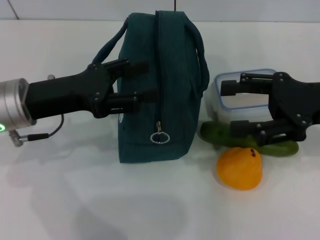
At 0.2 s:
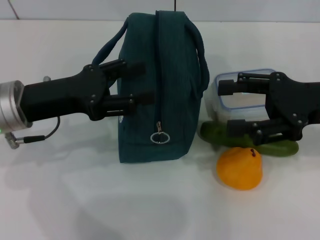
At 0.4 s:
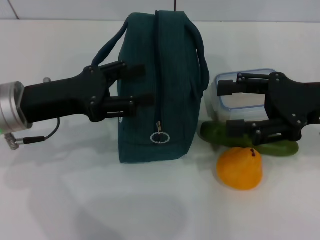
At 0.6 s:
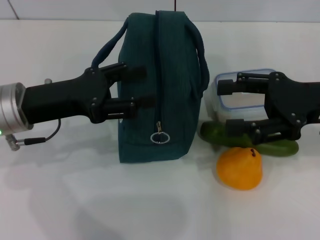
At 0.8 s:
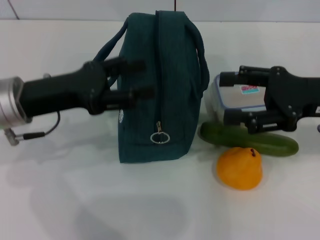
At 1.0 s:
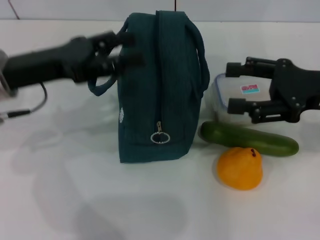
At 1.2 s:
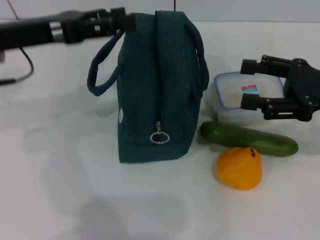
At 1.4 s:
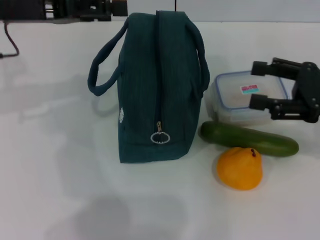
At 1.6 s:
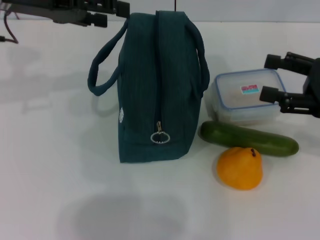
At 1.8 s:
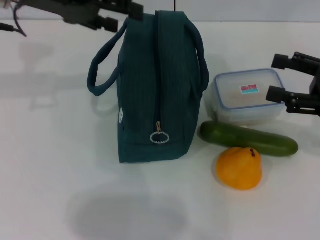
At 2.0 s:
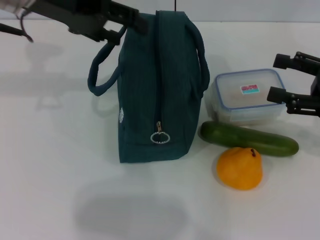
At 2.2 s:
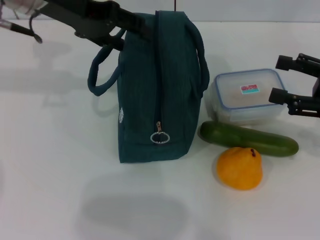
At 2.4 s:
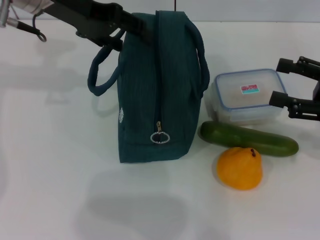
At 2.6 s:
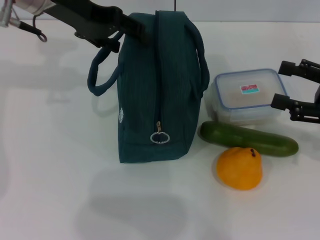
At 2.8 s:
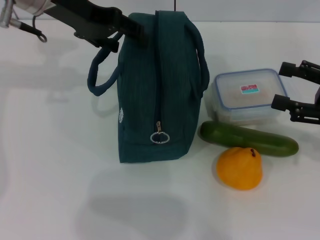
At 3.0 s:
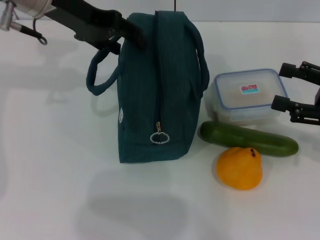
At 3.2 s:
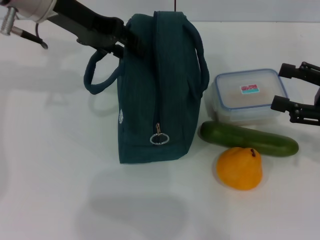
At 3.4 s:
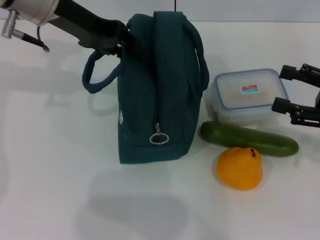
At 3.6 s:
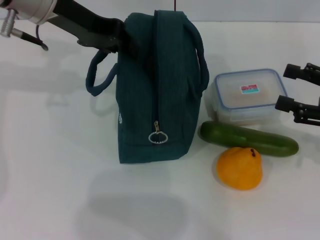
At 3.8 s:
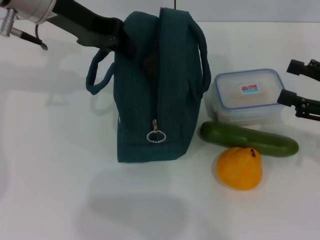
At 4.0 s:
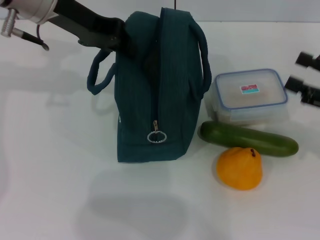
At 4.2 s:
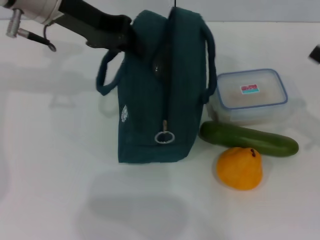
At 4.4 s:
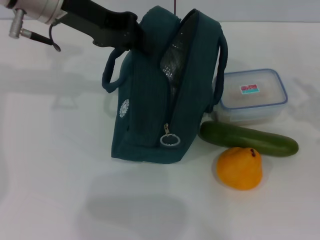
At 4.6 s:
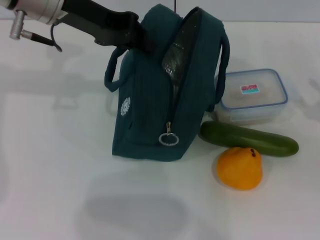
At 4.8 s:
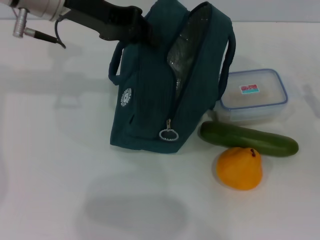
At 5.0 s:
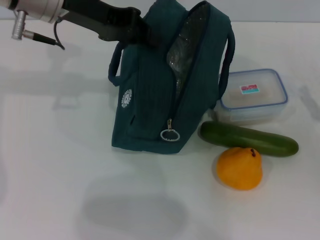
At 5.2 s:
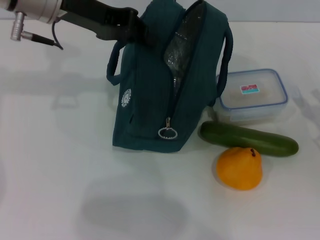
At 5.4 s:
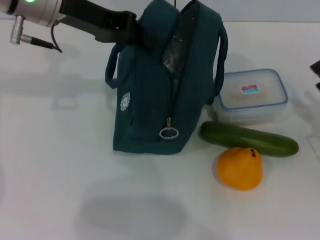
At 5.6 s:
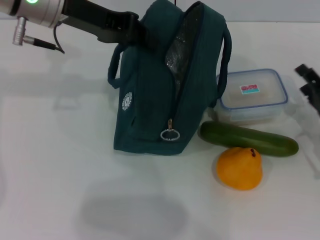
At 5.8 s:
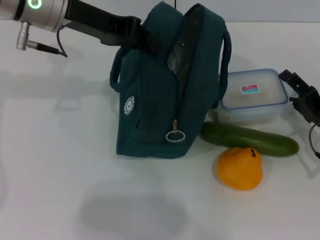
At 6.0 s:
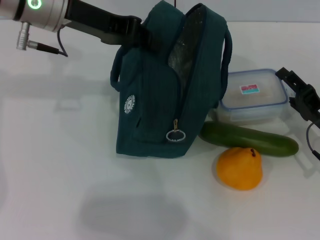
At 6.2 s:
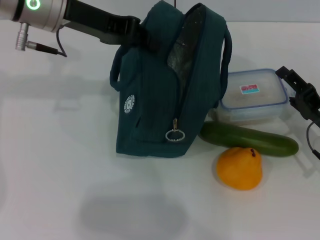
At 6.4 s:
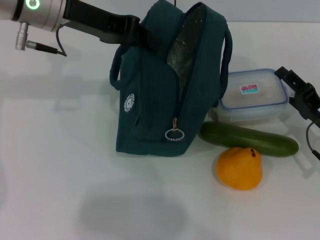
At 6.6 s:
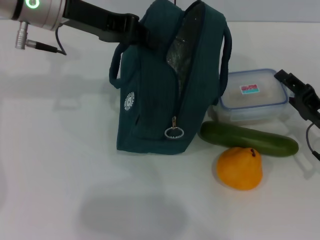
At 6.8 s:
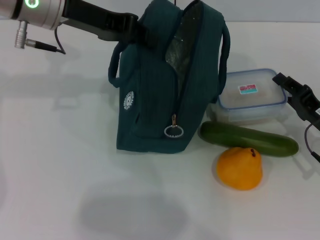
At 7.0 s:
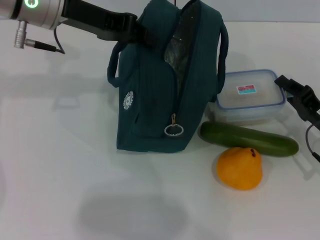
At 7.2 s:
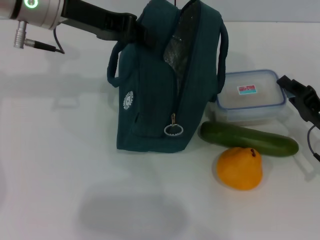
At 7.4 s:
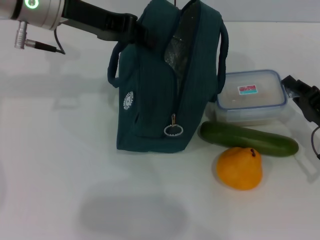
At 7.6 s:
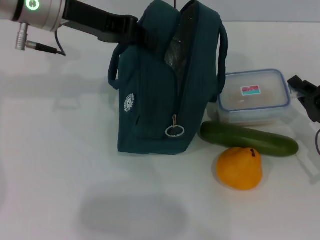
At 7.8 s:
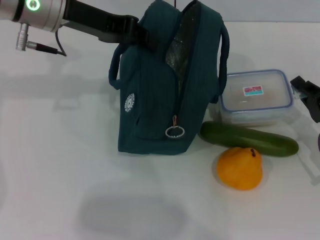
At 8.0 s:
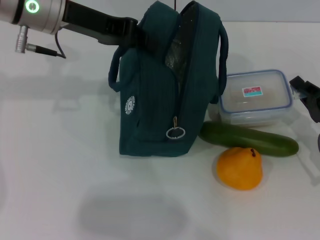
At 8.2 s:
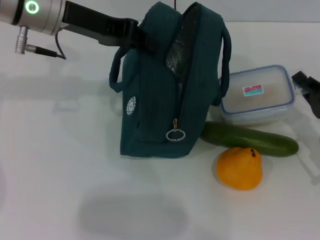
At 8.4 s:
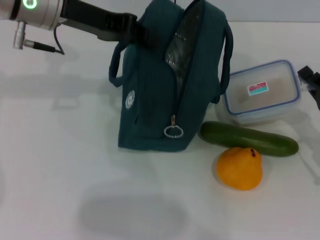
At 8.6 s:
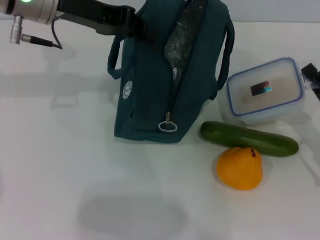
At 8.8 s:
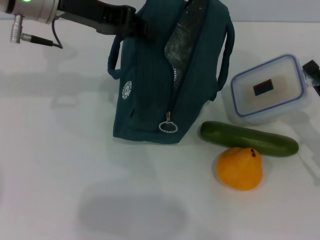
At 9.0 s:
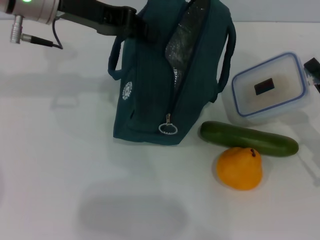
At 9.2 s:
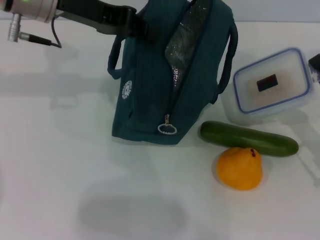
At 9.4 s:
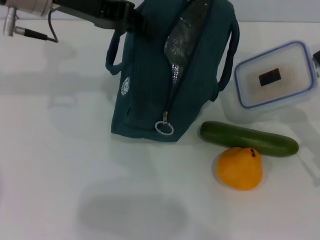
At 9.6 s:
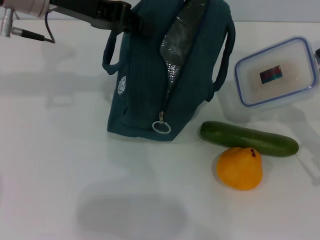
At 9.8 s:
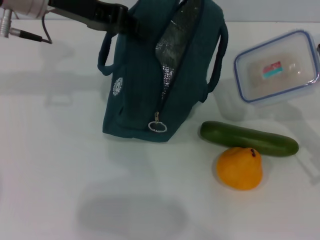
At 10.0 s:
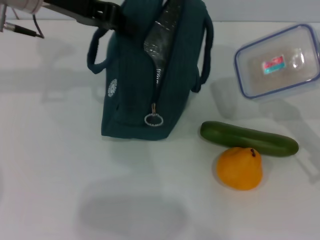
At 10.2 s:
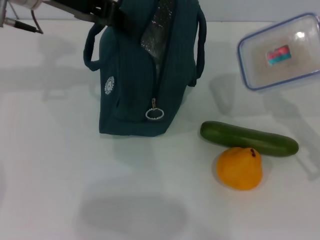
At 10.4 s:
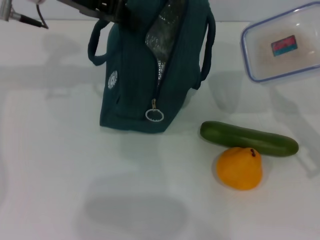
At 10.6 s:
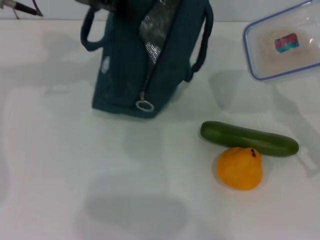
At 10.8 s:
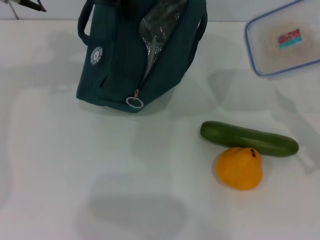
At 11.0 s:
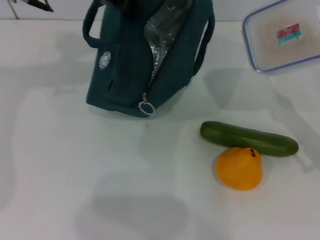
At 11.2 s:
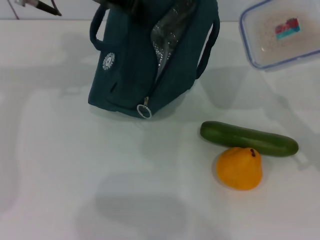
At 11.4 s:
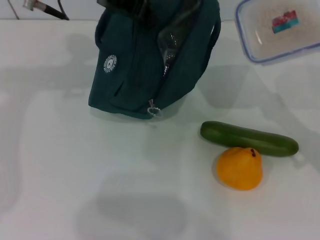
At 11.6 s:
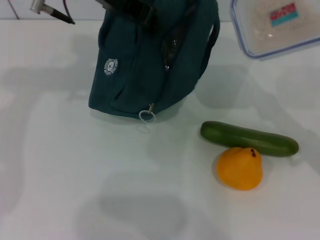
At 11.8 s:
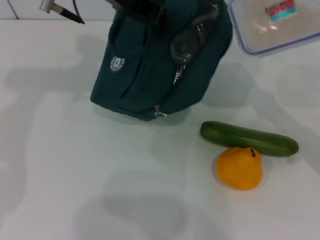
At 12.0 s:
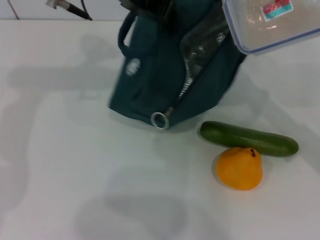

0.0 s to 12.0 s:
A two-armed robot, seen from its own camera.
Step, 0.0 to 5.4 s: Hold the lunch bag with your left hand.
Step, 5.6 to 8.2 s: Pick up the lunch box with your right hand.
0.0 to 1.6 s: The left gripper moves upward and forward, about 15 cm. Meanwhile the right gripper moves to the right, approximately 5 cm.
1.6 to 3.0 s: The left gripper travels to the right by approximately 5 cm.
3.0 to 4.4 s: The right gripper ends up roughly 5 cm from where it was, while the left gripper closes.
4.4 to 6.0 s: The right gripper travels to the left and downward by some 10 cm.
6.0 to 7.6 s: The right gripper closes.
7.6 to 9.0 s: The grippers move only a little.
10.4 to 12.0 s: The left gripper heads to the right, covering about 5 cm. Meanwhile the right gripper shifts by roughly 5 cm.

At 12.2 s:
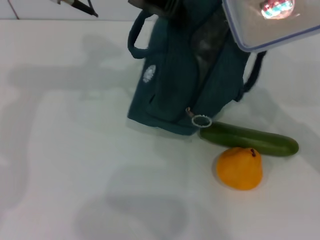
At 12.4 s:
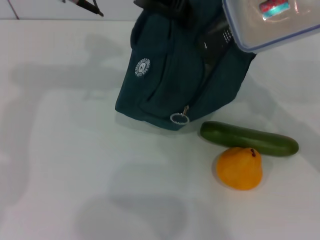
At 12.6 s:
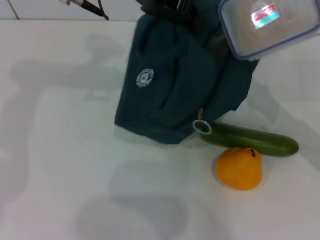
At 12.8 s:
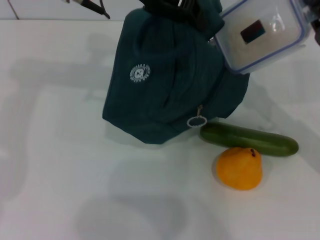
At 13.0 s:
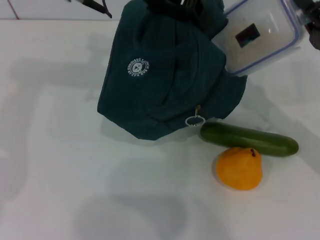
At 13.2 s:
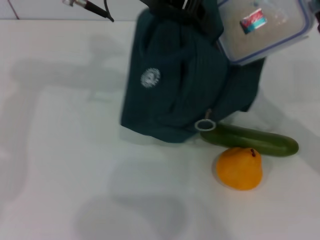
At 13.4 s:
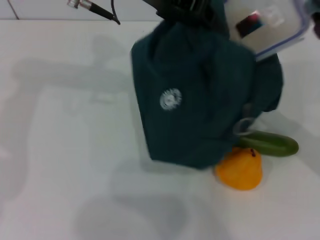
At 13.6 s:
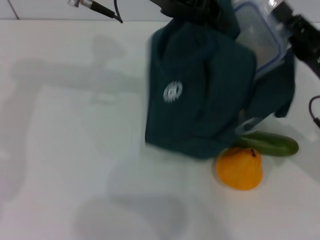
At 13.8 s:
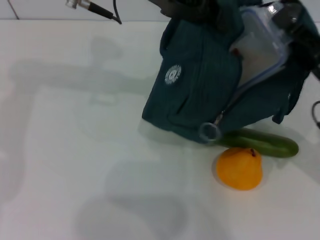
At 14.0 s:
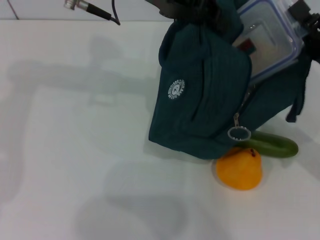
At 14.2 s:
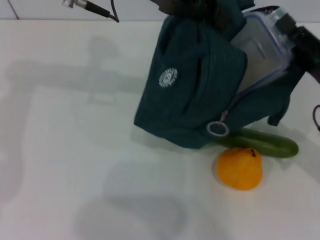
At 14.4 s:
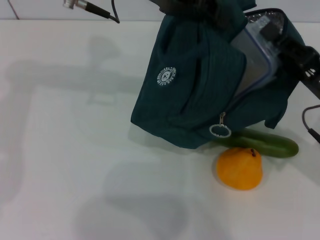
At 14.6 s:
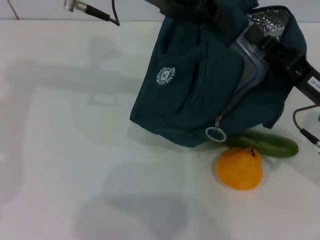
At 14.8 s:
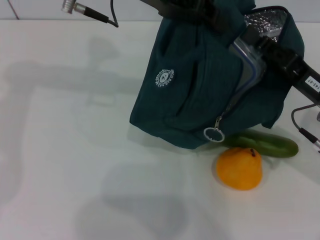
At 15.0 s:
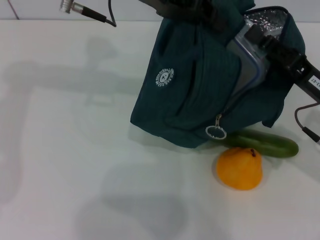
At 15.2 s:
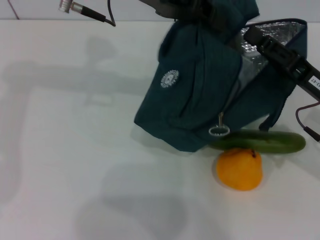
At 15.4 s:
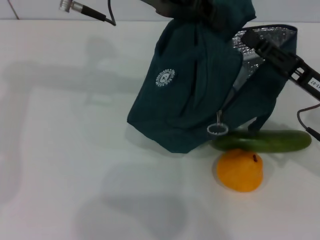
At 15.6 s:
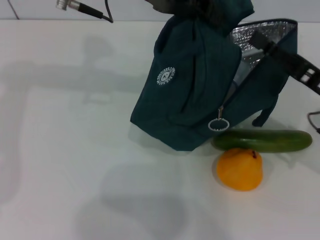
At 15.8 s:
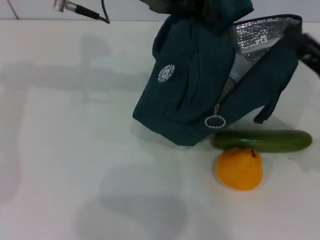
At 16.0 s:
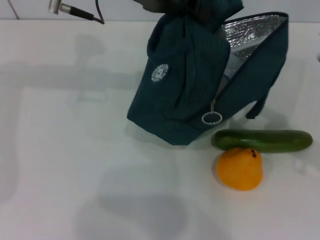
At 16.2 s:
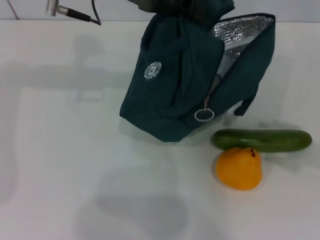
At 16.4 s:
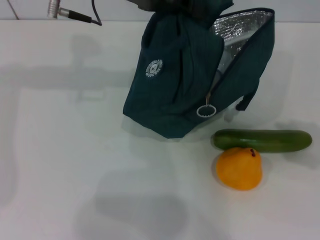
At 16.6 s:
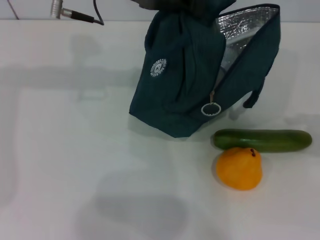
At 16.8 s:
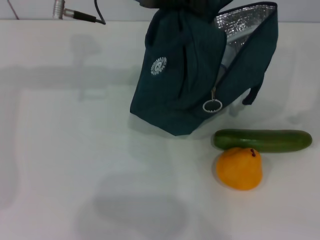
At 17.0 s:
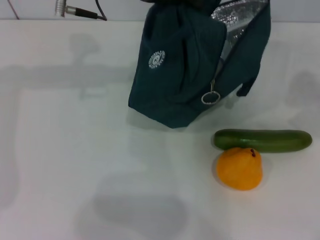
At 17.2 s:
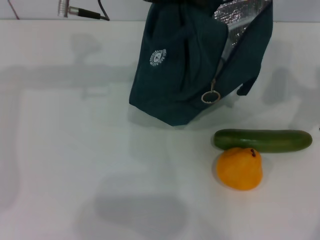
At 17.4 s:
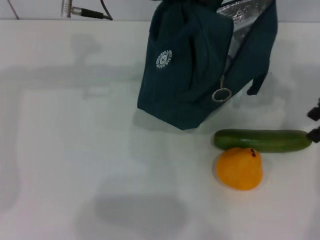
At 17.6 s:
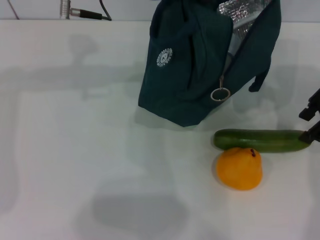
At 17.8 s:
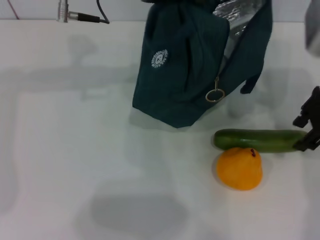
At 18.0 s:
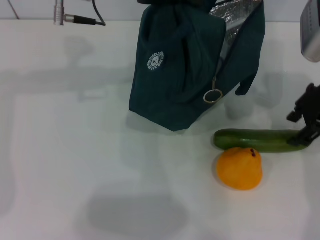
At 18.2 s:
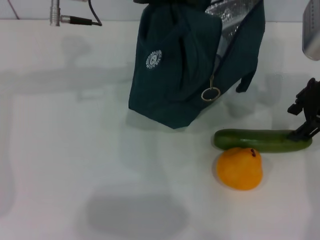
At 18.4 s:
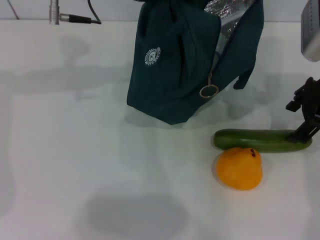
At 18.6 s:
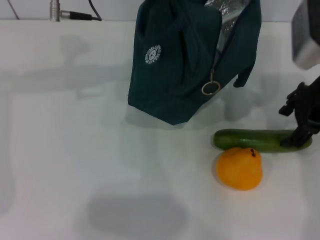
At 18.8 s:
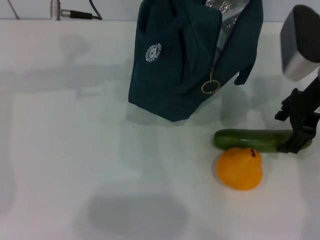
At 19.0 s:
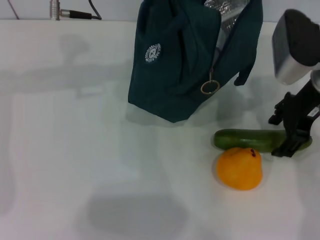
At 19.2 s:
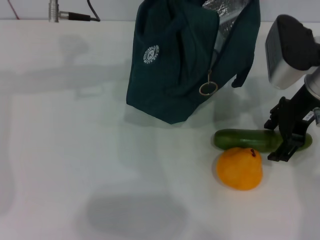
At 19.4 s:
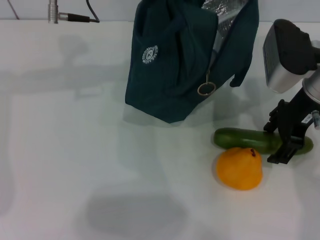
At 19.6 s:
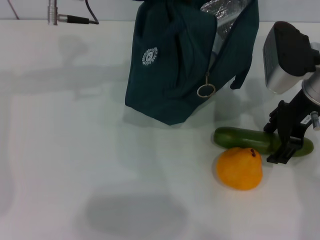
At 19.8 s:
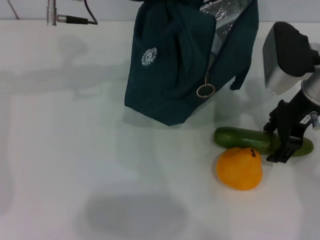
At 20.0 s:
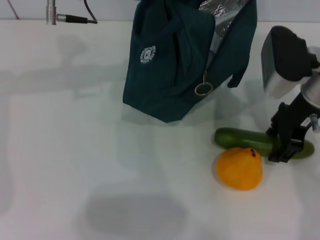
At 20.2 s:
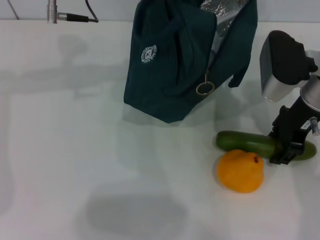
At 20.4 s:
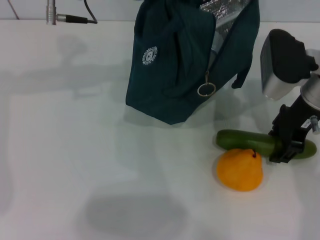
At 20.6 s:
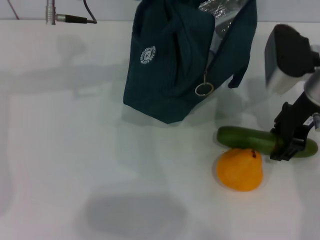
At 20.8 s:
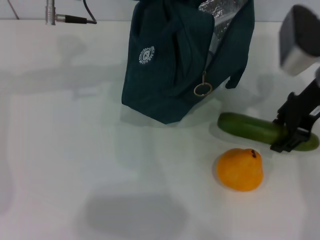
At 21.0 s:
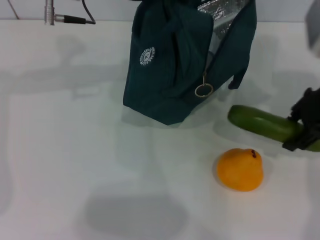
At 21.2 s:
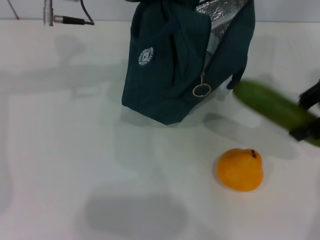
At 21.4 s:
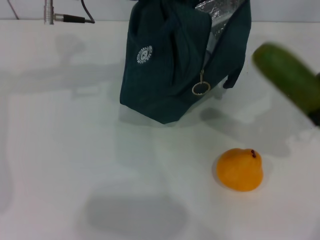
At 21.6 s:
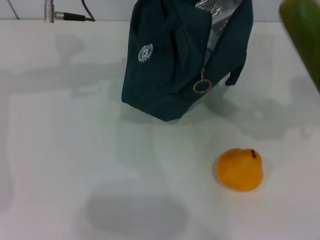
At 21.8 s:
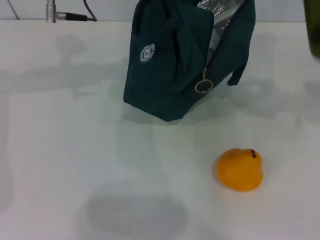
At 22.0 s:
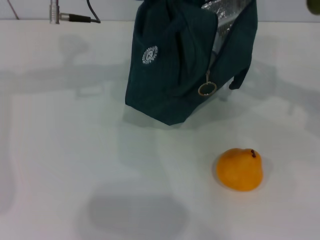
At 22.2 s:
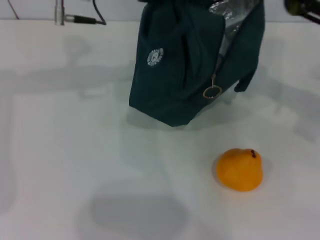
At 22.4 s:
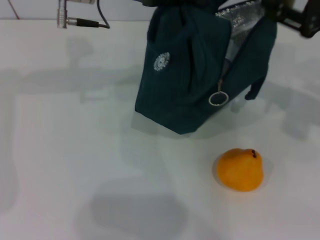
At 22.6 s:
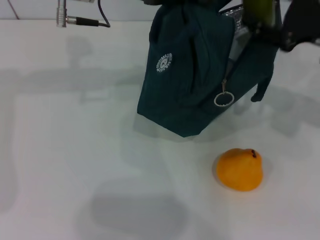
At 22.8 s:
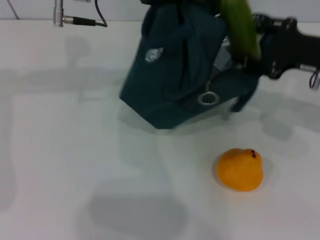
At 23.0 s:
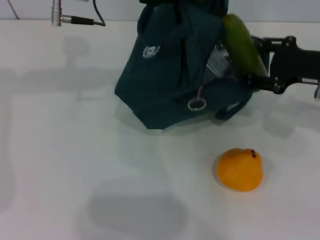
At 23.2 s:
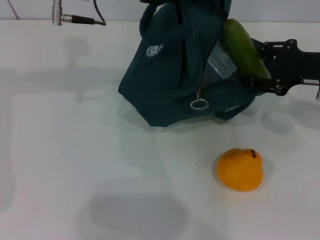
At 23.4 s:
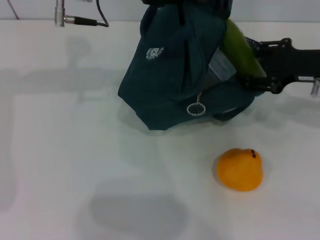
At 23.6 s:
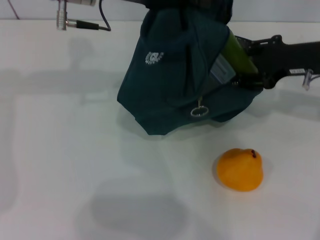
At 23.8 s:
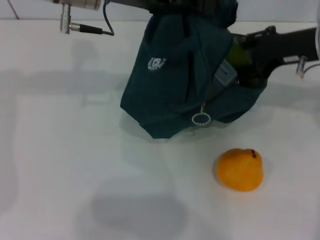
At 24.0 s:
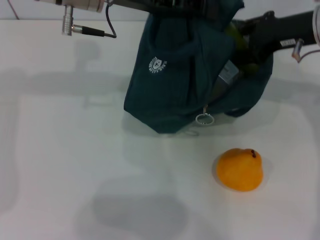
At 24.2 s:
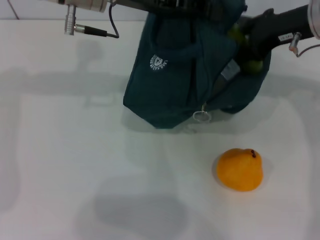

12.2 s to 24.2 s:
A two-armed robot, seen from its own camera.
Step, 12.2 to 15.4 s: Place the lunch box into the lunch bag with your right hand.
Step, 15.8 to 20.0 s: Pick up the cucumber with your right hand.
12.2 to 13.8 s: There are only small adjustments of the grippers.
13.8 to 15.2 s: There are only small adjustments of the grippers.
15.2 to 16.6 s: The right gripper shifts some 20 cm to the right and upward, and opens.
16.6 to 18.2 s: The right gripper is displaced to the left and forward by some 20 cm.
18.2 to 19.8 s: The right gripper moves approximately 5 cm.
19.8 to 21.2 s: The right gripper travels to the right and upward by about 10 cm.
21.2 to 22.6 s: The right gripper heads downward, covering some 5 cm.
22.6 to 24.2 s: The right gripper shifts approximately 5 cm to the left.
